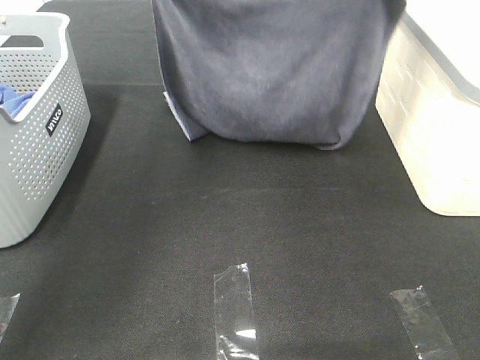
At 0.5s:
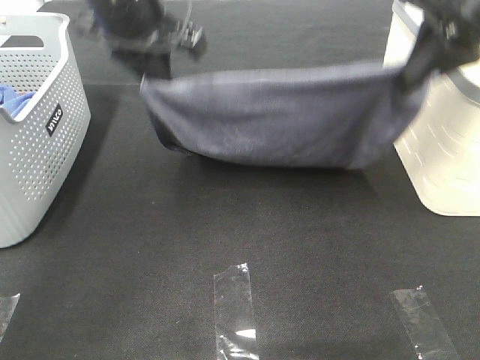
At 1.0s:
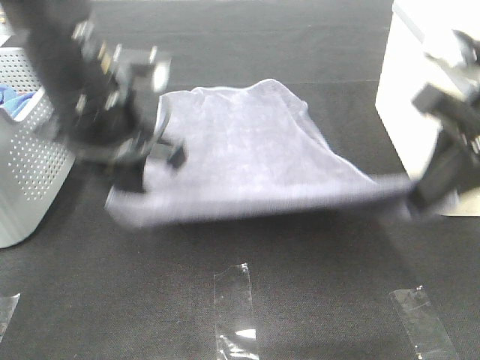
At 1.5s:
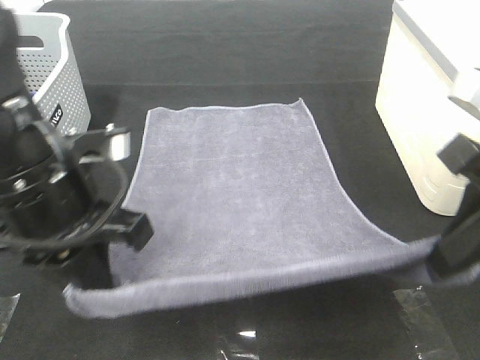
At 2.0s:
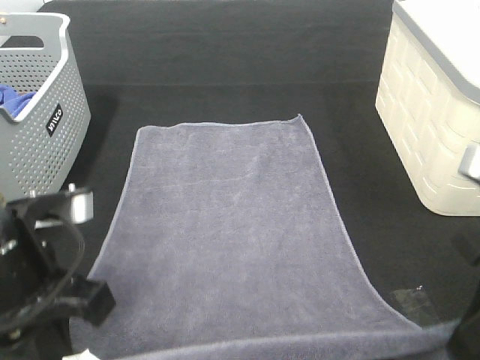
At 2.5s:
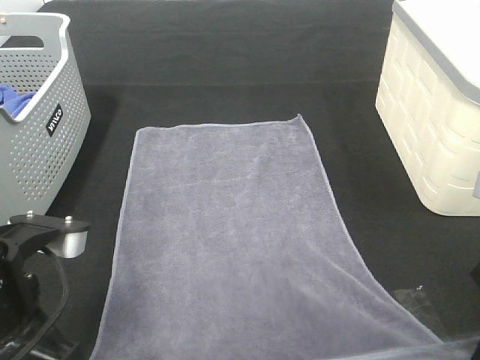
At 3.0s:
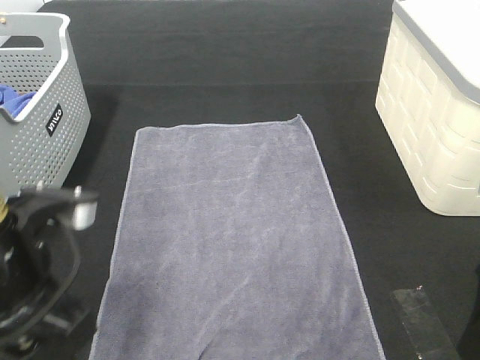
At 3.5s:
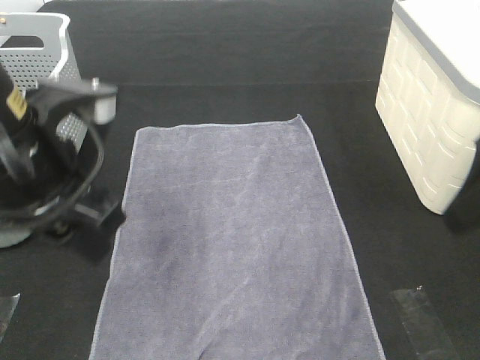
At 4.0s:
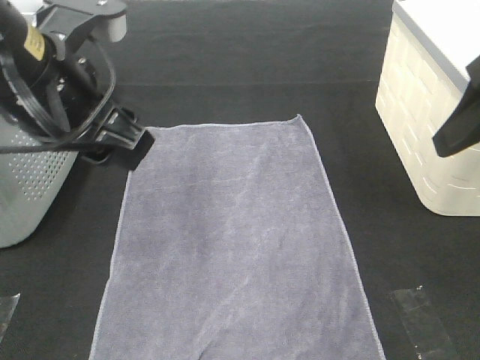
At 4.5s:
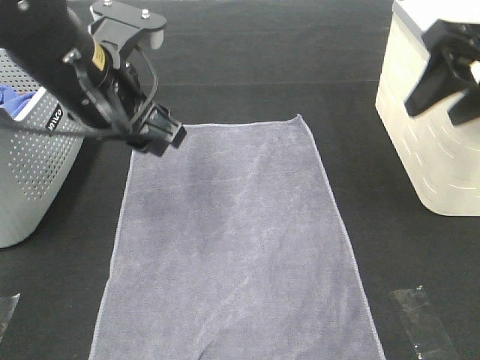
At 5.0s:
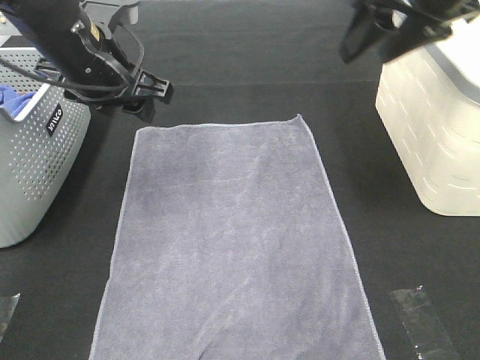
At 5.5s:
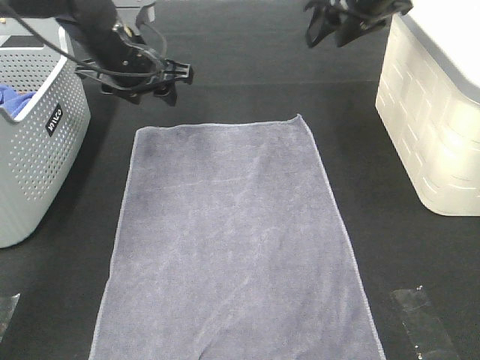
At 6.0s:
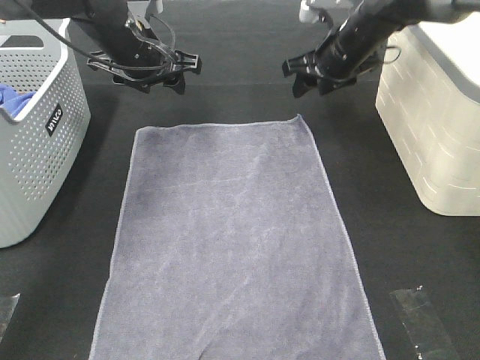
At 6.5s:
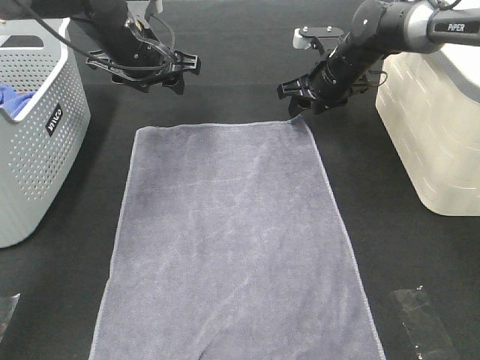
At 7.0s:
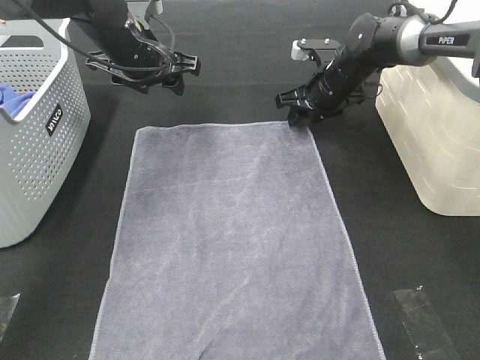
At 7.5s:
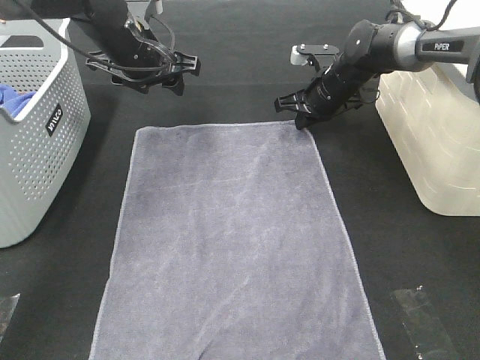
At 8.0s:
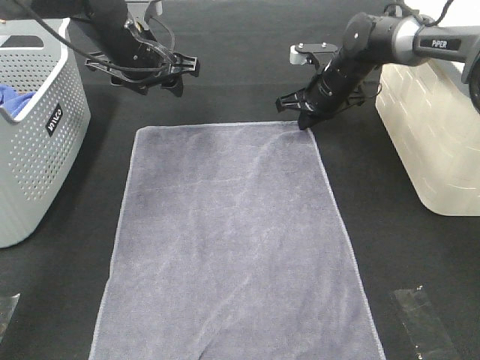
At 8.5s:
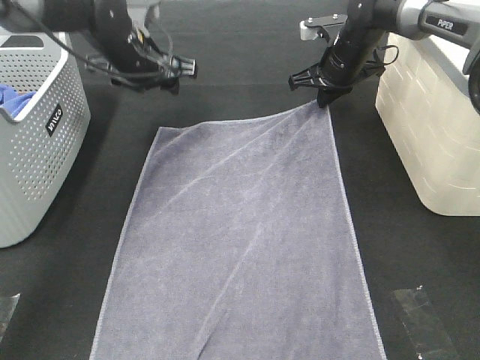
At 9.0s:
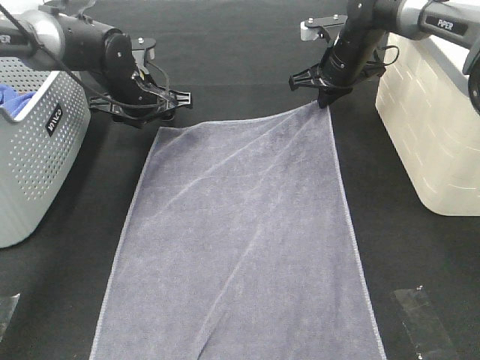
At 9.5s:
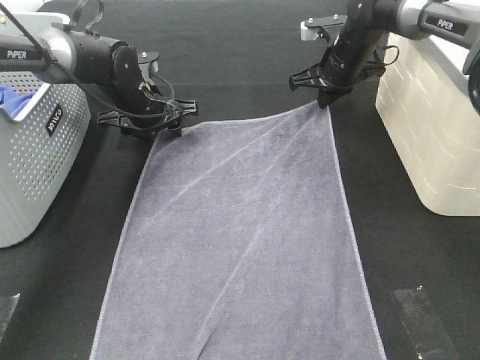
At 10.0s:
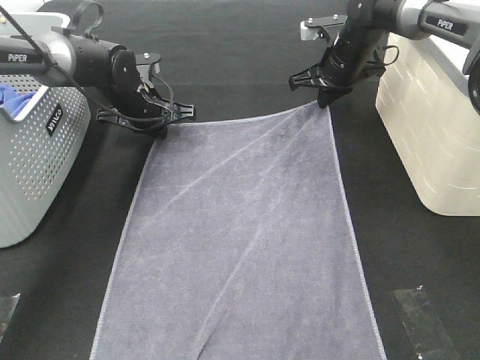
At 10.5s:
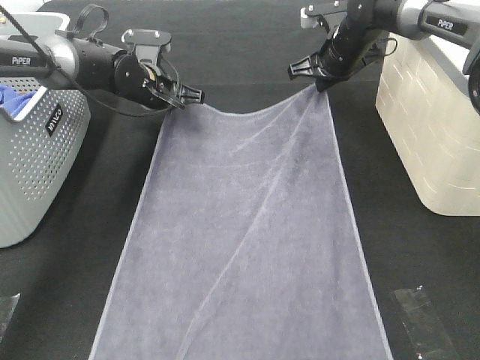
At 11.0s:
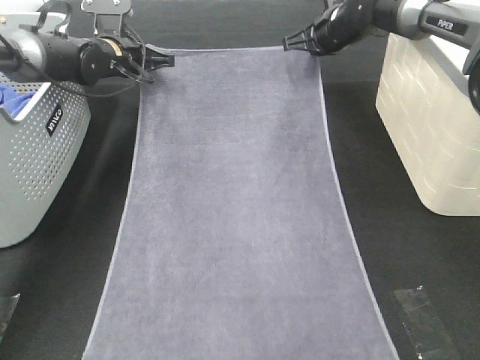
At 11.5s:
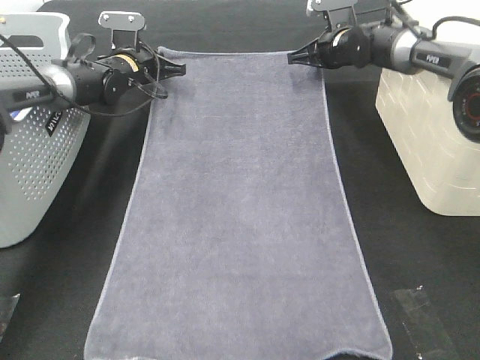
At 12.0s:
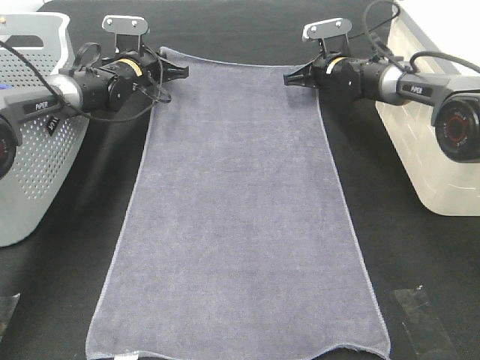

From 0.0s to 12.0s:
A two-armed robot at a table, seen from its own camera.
Task of the whole recording: Remove the towel and place it.
Step, from 0.0s to 6.5s: Left hand:adjust the gray towel.
Step, from 0.0s to 6.5s: Right hand:adjust the gray towel.
From 0.0s to 2.0s: The two grippers go some 30 cm backward and downward.
From 2.0s to 4.0s: The right gripper heads upward and forward, covering some 10 cm, and opens up; the left gripper shifts roughly 10 cm forward and upward, and opens up.
From 4.0s to 6.0s: The left gripper travels forward by roughly 20 cm; the right gripper heads forward and downward, covering approximately 30 cm.
From 6.0s to 8.0s: The right gripper heads downward, covering approximately 5 cm, and closes its fingers.
From 8.0s to 10.0s: The left gripper travels downward by about 10 cm, and closes.
From 10.0s to 12.0s: The left gripper goes some 10 cm forward; the right gripper shifts some 10 cm downward and forward.

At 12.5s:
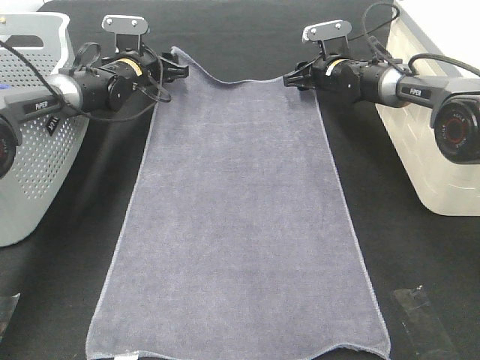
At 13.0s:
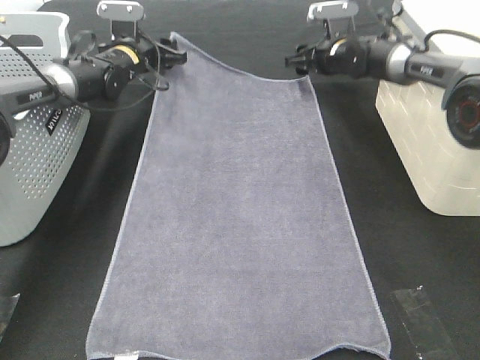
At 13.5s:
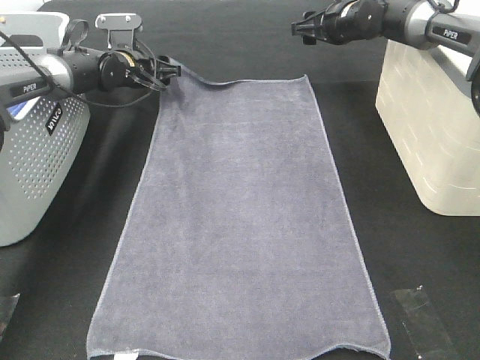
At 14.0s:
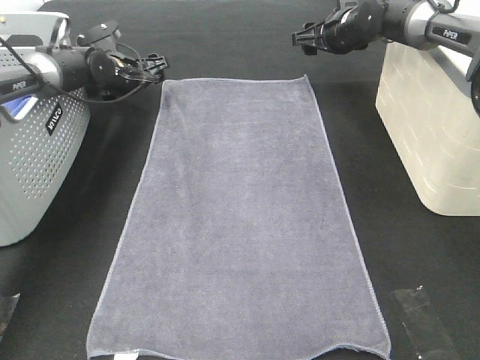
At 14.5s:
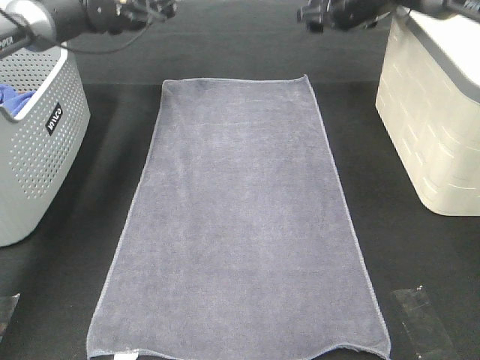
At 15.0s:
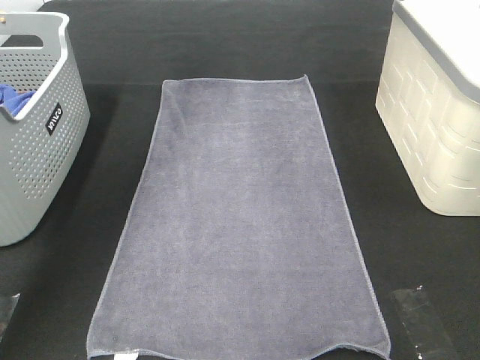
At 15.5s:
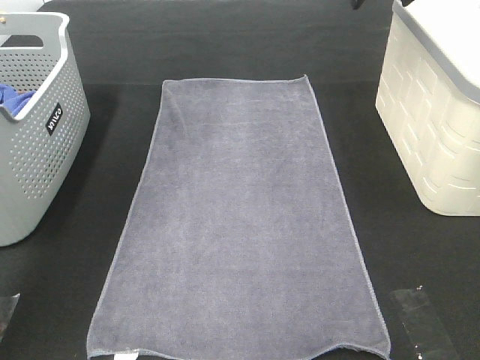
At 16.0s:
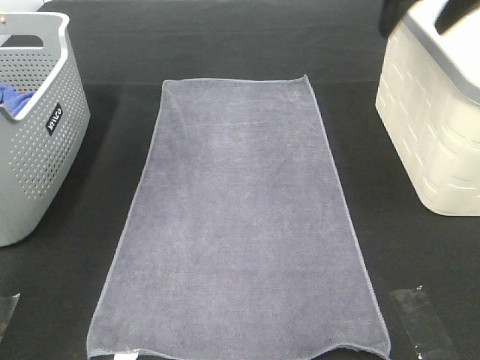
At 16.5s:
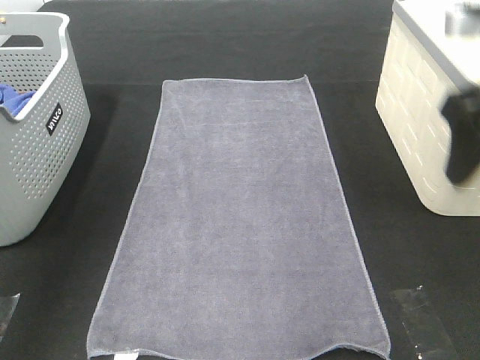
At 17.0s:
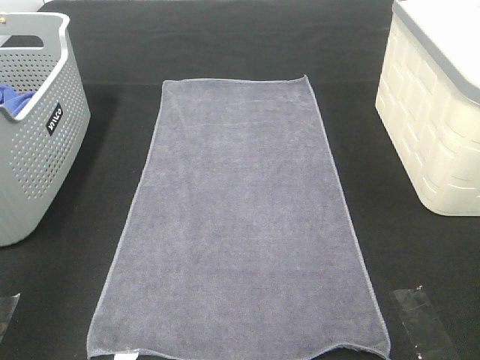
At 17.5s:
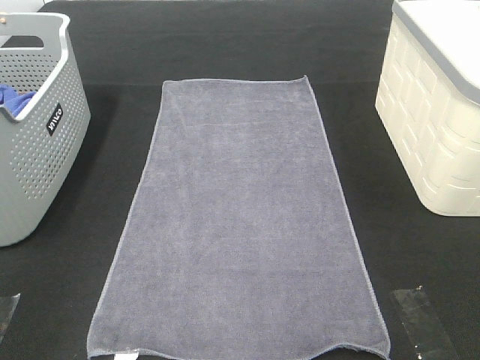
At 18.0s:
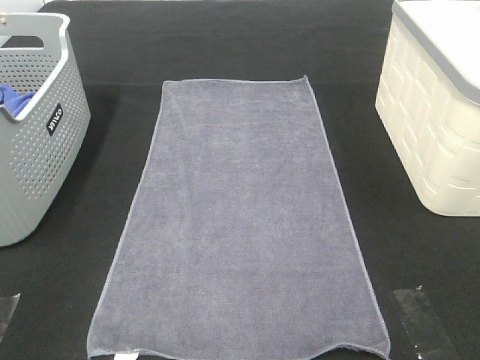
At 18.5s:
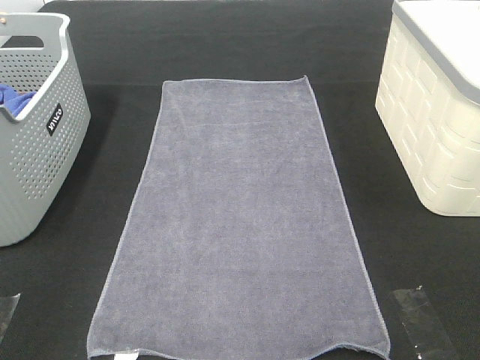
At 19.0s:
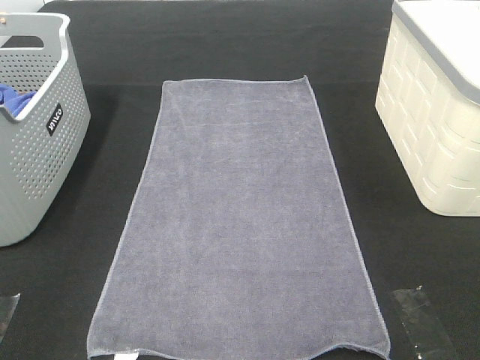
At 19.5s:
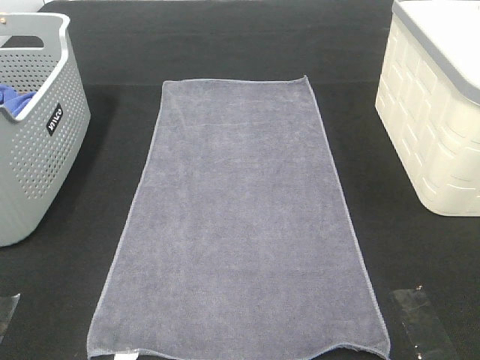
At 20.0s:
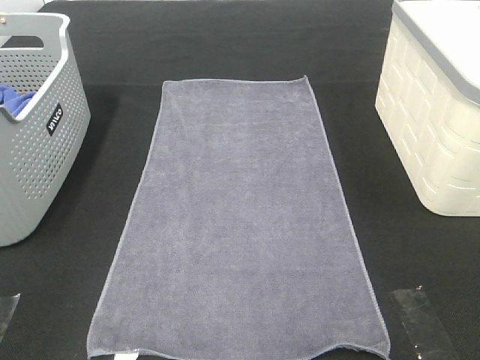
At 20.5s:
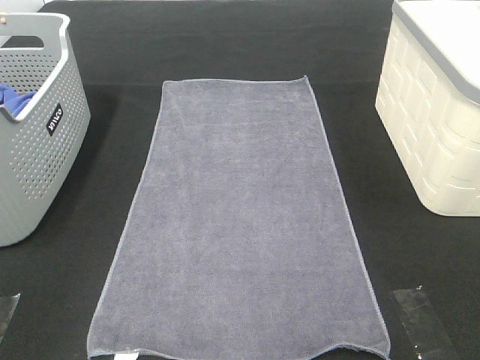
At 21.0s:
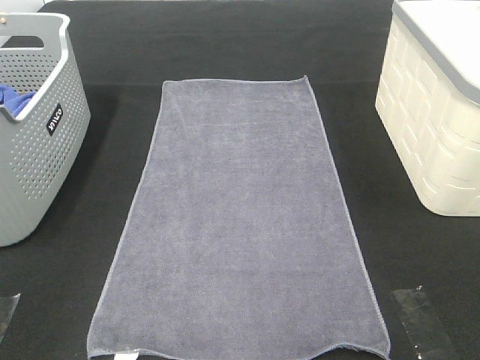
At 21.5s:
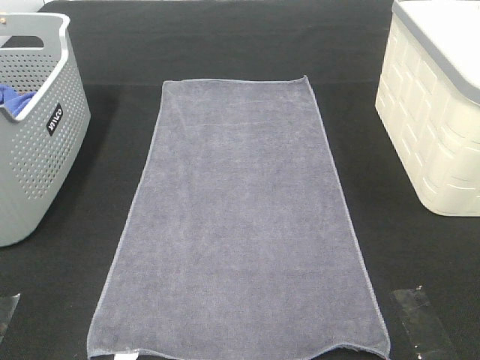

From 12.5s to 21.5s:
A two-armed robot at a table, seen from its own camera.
Task of the whole recording: Remove the towel and place it.
From 12.5s to 14.5s: Both grippers travel together upward, about 15 cm.
From 14.5s to 17.0s: Both grippers move backward, some 50 cm.

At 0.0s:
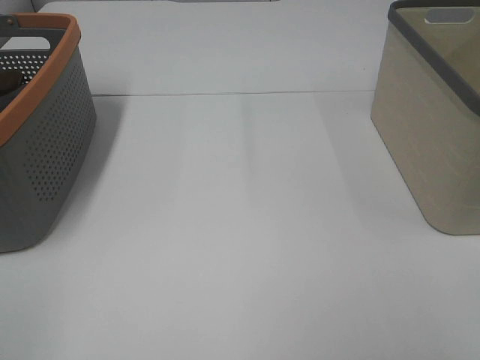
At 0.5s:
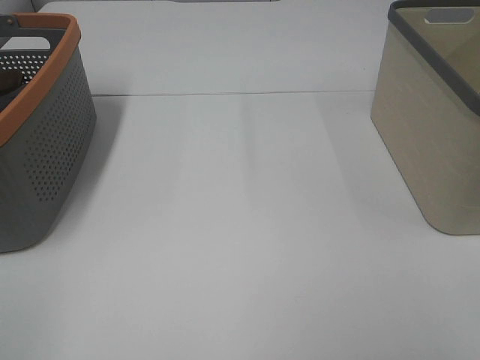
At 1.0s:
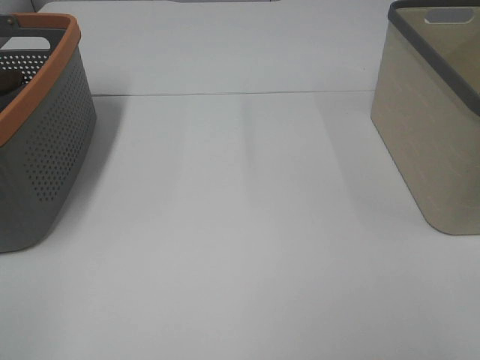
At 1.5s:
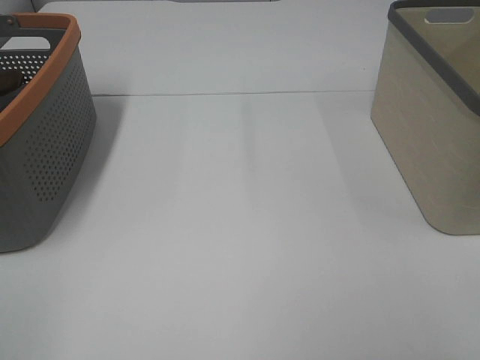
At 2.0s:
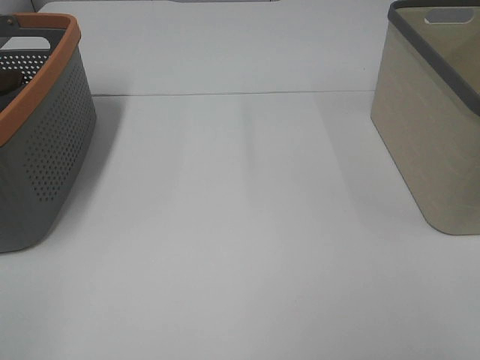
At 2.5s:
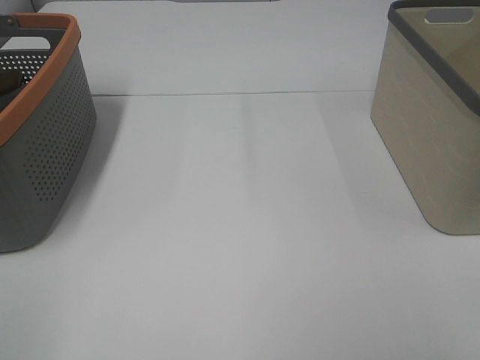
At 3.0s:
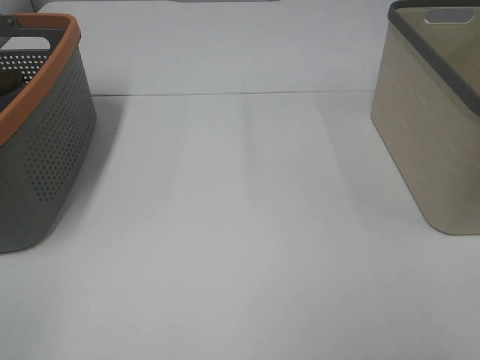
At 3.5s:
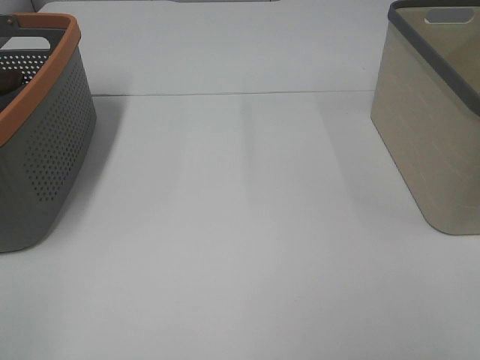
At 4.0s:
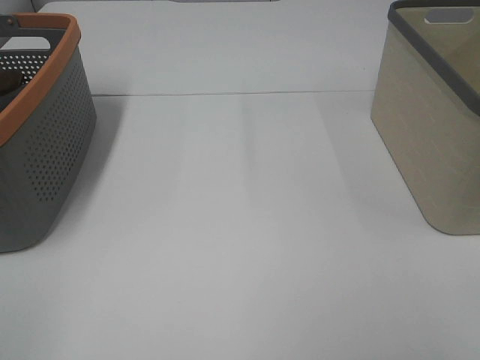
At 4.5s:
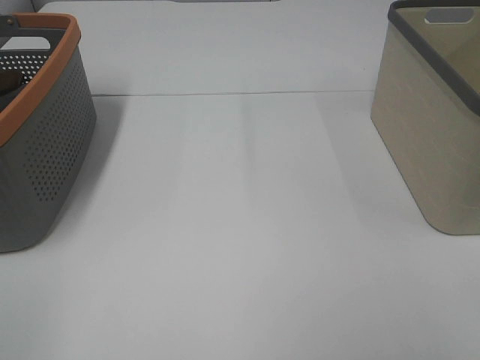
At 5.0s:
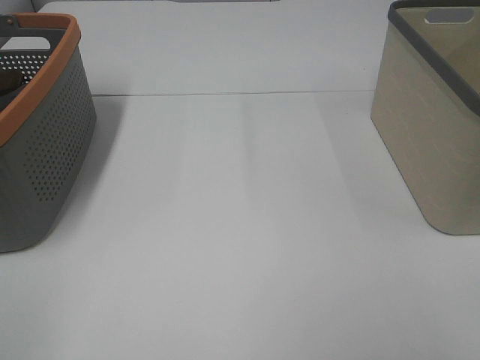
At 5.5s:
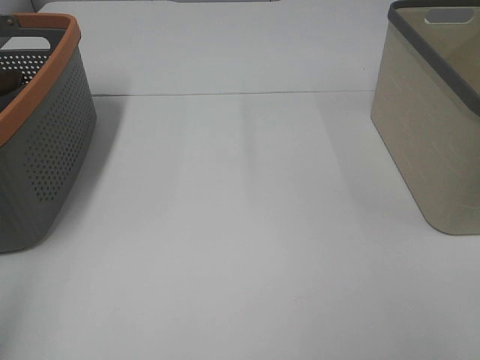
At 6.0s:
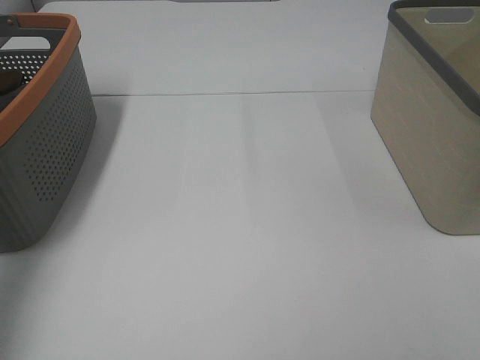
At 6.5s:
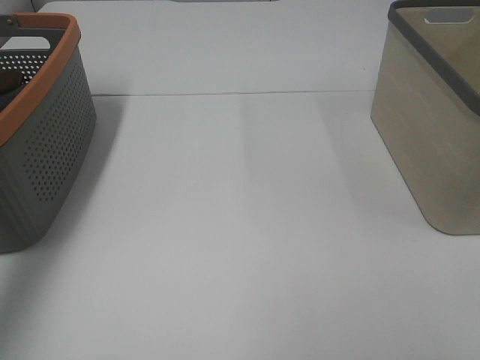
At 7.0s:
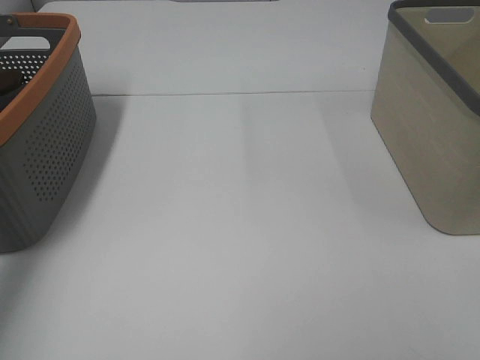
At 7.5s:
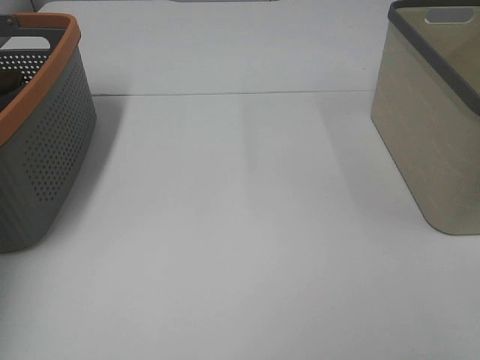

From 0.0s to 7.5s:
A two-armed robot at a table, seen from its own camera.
Task of the whole recording: Remove the towel and place it.
From 0.0s to 4.0s: Both grippers stay about where they are.
